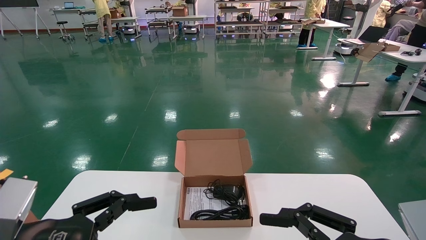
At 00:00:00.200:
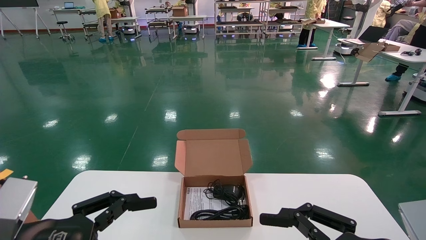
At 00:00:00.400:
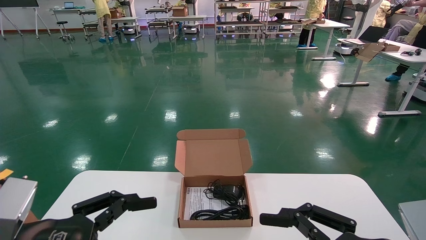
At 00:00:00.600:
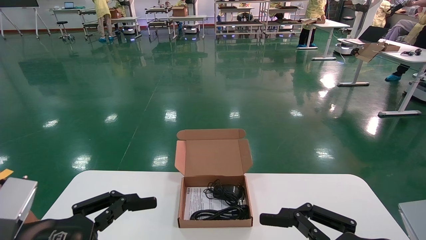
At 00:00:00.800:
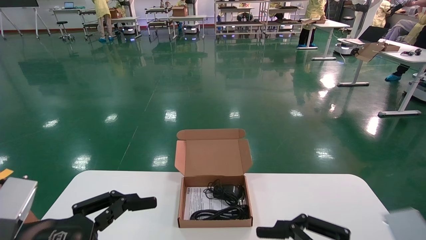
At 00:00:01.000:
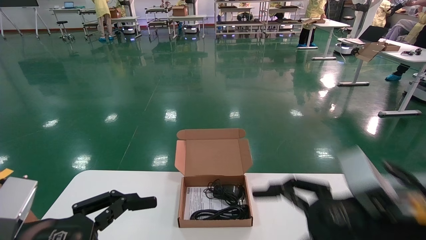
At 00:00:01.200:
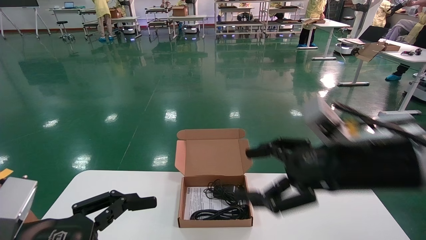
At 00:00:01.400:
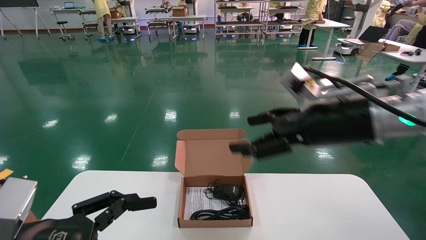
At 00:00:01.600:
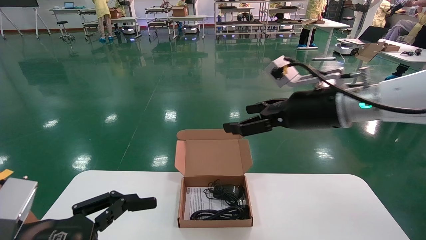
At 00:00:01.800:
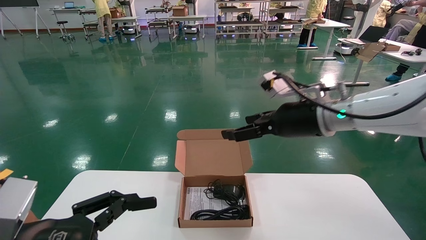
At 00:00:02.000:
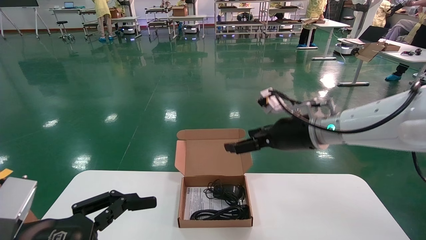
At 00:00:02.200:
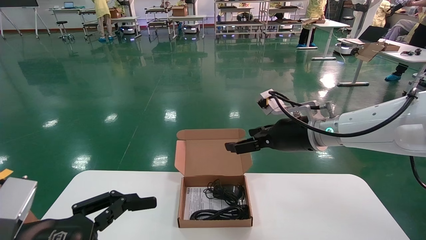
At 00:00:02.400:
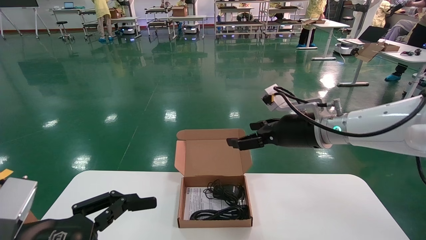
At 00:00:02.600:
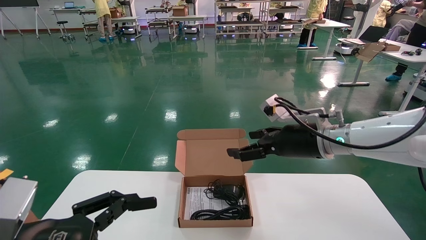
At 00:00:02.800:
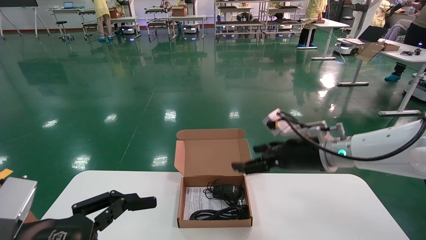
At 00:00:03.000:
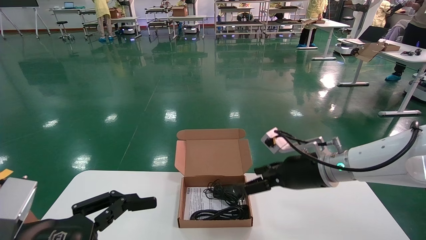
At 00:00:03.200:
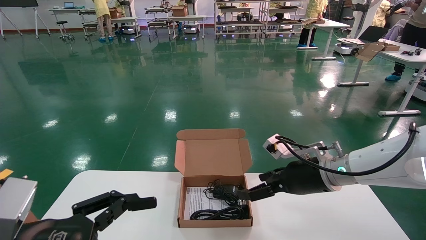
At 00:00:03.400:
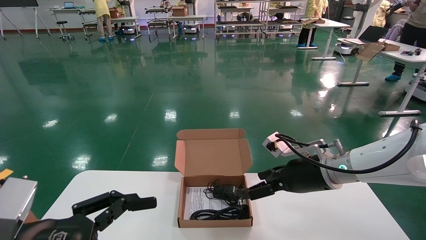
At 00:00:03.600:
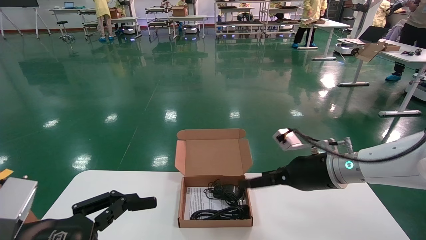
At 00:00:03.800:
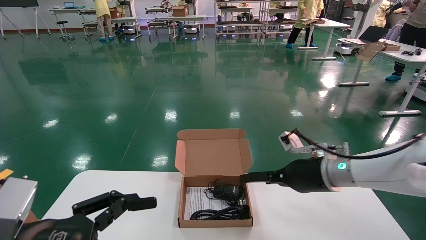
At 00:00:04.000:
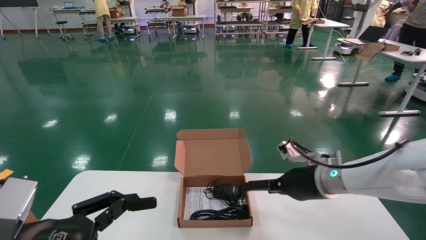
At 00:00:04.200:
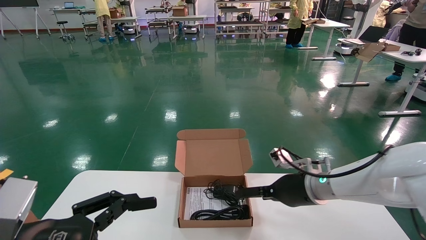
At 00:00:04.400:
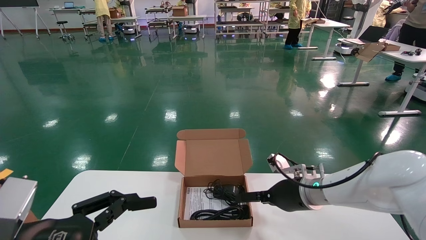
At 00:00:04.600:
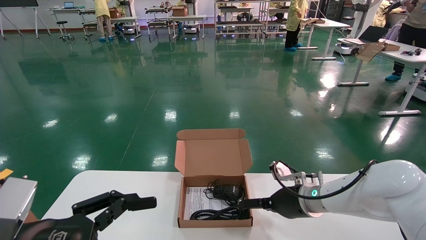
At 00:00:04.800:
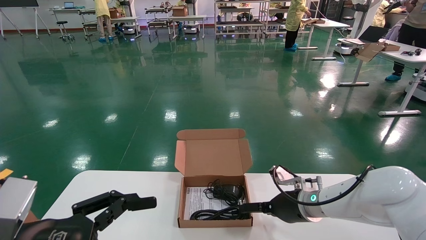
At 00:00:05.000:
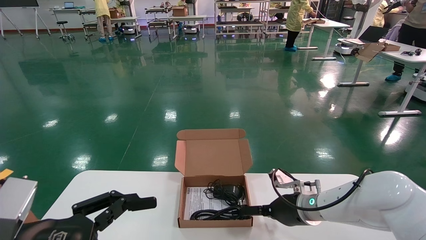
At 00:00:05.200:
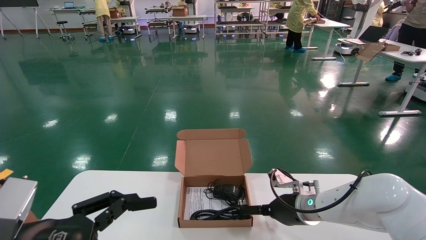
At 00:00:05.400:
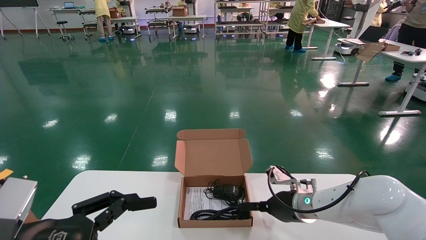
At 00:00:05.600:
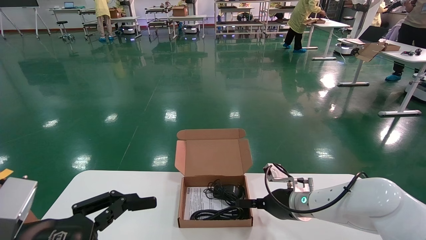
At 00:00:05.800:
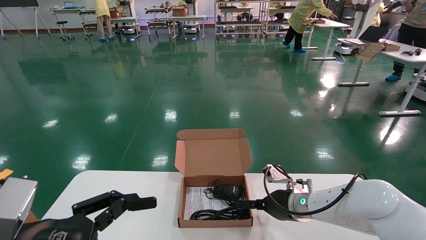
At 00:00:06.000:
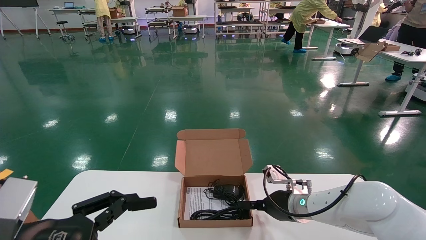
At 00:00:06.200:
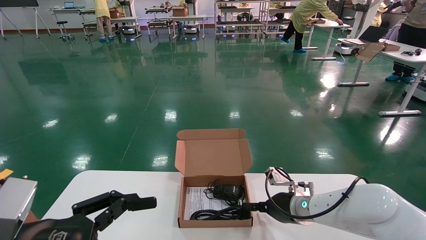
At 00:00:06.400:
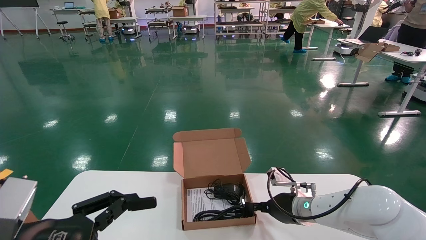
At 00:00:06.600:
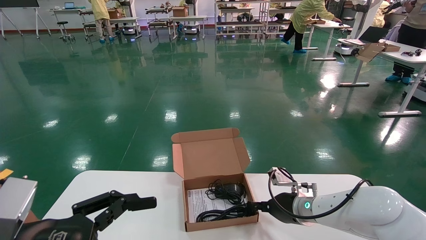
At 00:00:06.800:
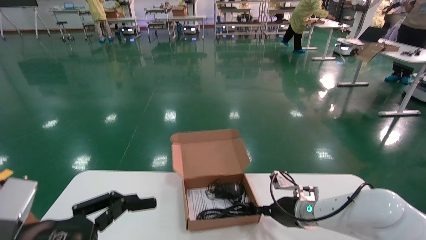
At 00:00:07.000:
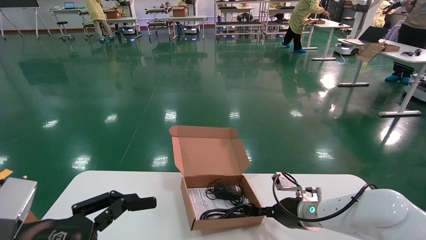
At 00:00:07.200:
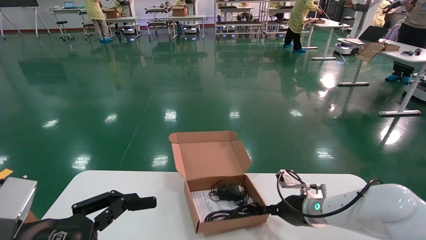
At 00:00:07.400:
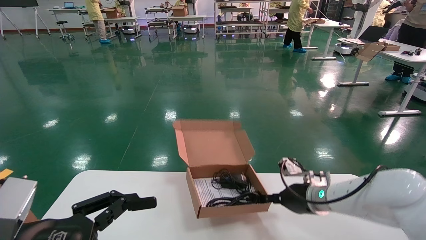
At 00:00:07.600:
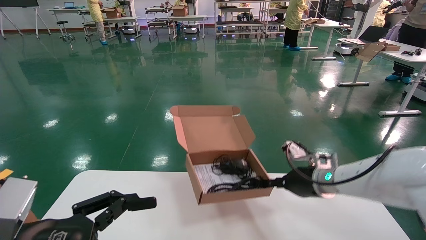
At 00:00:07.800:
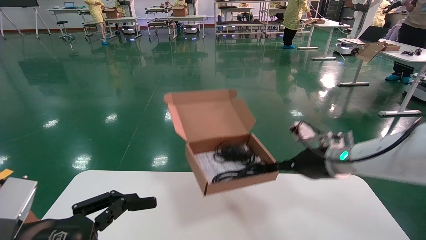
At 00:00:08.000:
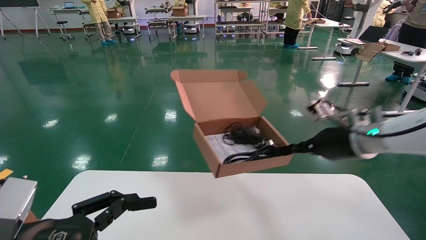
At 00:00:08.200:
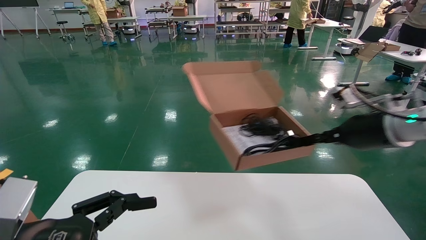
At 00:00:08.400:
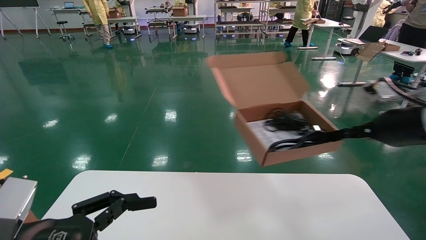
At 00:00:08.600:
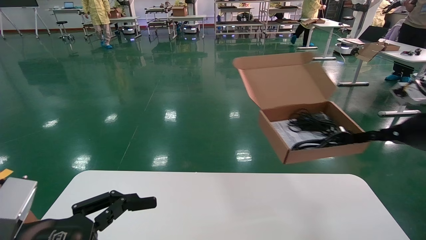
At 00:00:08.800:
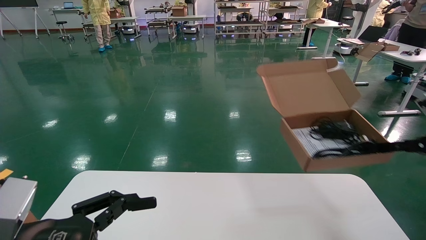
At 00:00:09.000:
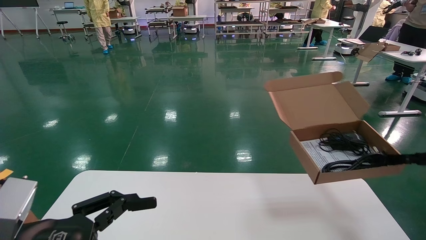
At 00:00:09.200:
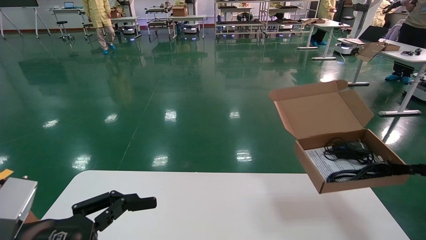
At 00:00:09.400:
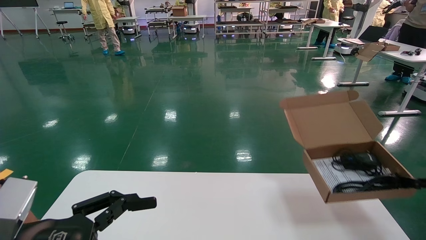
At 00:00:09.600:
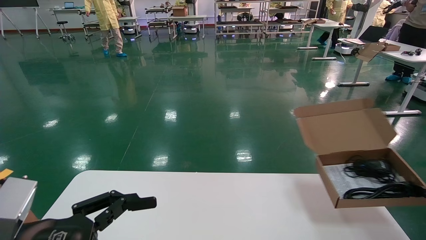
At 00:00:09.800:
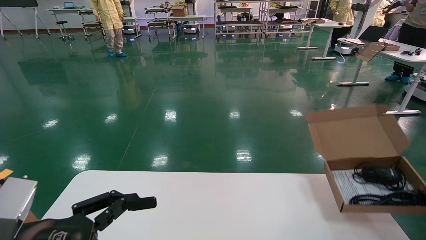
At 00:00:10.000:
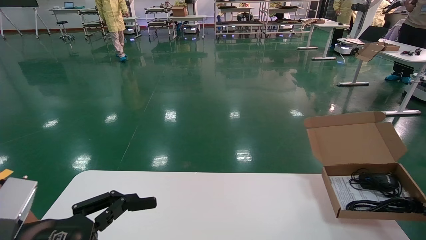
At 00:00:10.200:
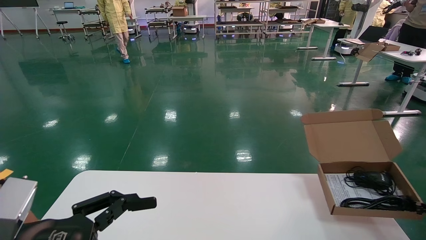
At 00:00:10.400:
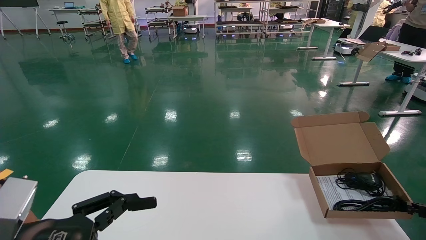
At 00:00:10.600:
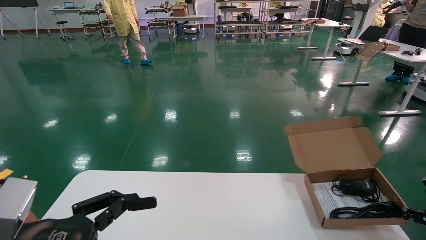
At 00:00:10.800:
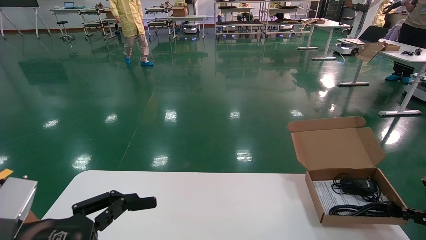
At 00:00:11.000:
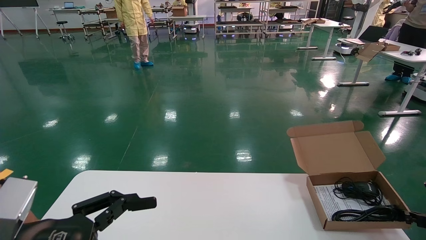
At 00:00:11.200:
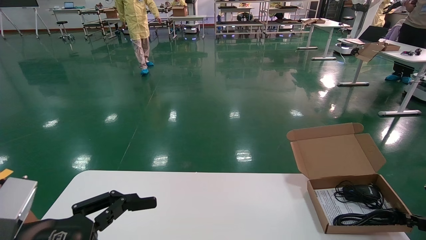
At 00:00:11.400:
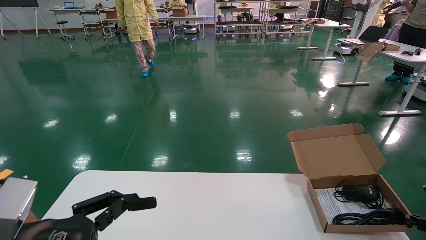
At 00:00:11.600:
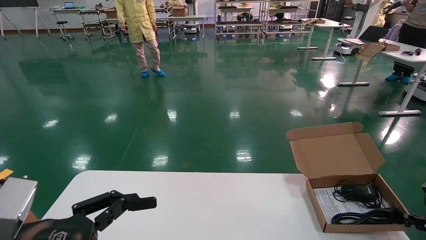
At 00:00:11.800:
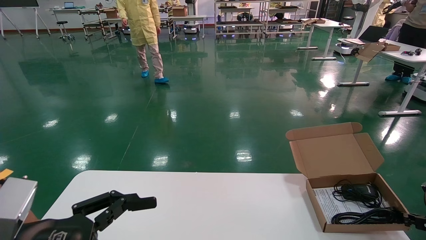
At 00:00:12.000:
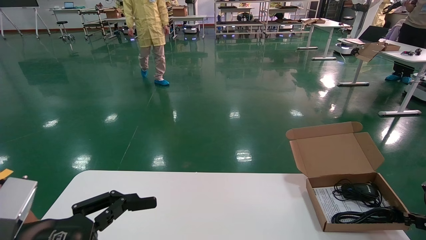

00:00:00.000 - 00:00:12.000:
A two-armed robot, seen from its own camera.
Task of the whole recording: move the position of the storage box with accessories on the table.
Step, 00:00:01.000 - 00:00:06.800: Grab and pick up the open mouse box from the accessory packaging area.
00:00:00.000 - 00:00:01.600: The right gripper is displaced forward and upward by about 25 cm.
00:00:01.600 - 00:00:03.000: The right gripper is displaced downward and forward by about 10 cm.
00:00:03.000 - 00:00:04.400: The right gripper moves downward, roughly 10 cm.
00:00:04.400 - 00:00:06.000: There are only small adjustments of the grippers.
00:00:06.000 - 00:00:07.600: The right gripper is displaced upward by roughly 10 cm, and closes up.
00:00:07.600 - 00:00:09.000: The right gripper travels to the right and backward by approximately 25 cm.
00:00:09.000 - 00:00:10.400: The right gripper goes approximately 15 cm downward.
00:00:10.400 - 00:00:12.000: The grippers stay close to where they were, moving slightly.

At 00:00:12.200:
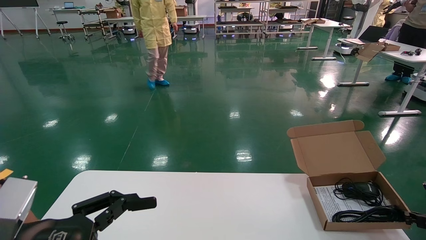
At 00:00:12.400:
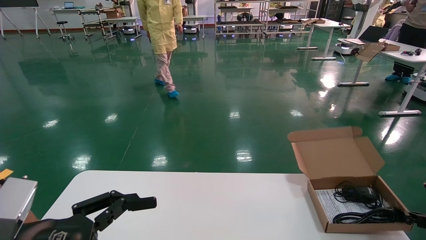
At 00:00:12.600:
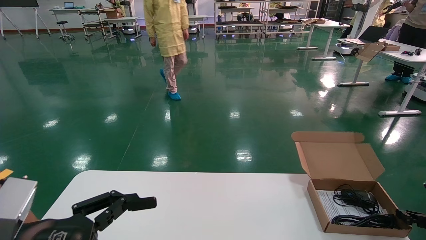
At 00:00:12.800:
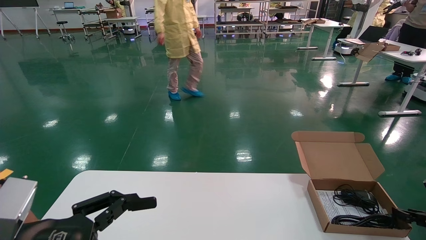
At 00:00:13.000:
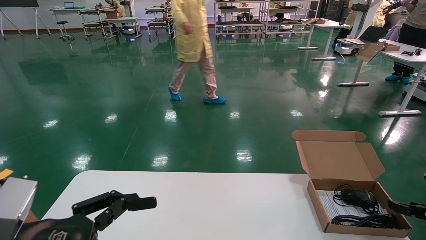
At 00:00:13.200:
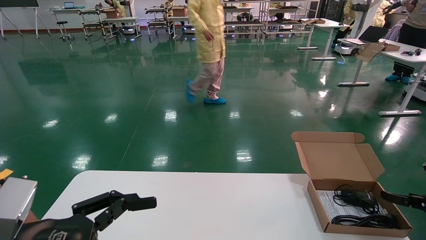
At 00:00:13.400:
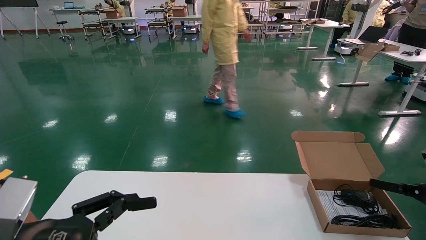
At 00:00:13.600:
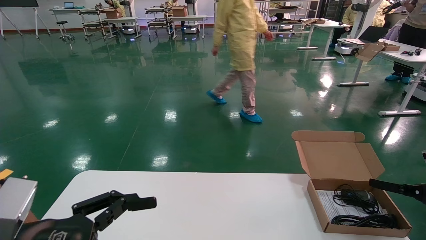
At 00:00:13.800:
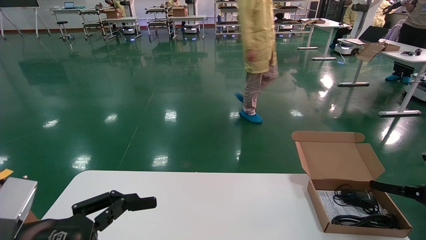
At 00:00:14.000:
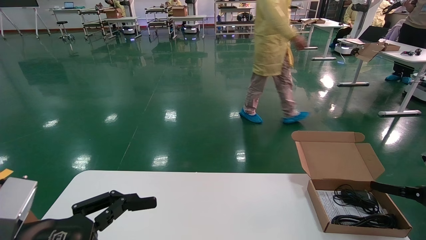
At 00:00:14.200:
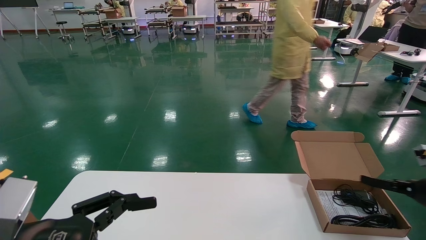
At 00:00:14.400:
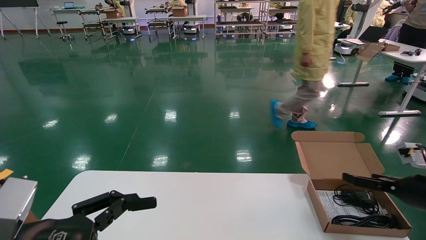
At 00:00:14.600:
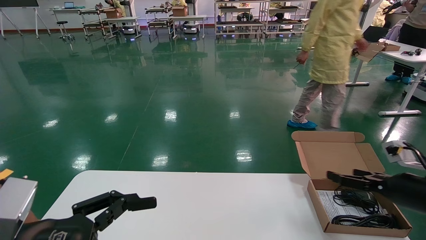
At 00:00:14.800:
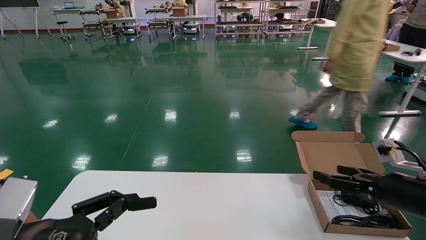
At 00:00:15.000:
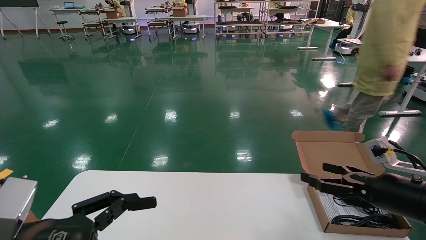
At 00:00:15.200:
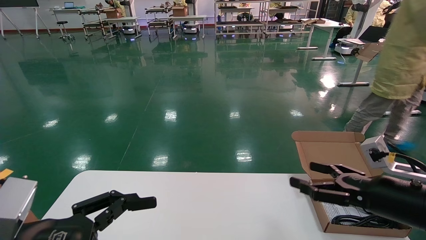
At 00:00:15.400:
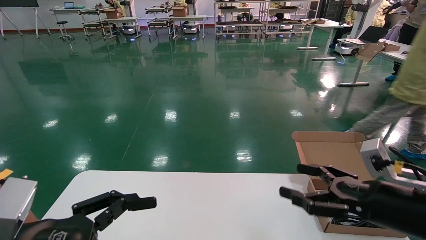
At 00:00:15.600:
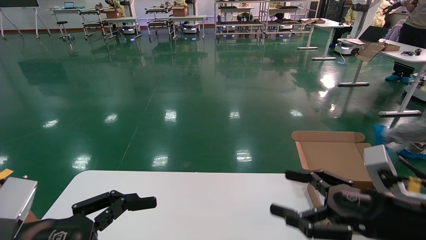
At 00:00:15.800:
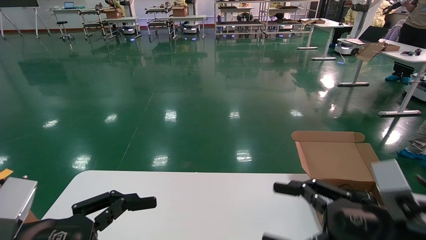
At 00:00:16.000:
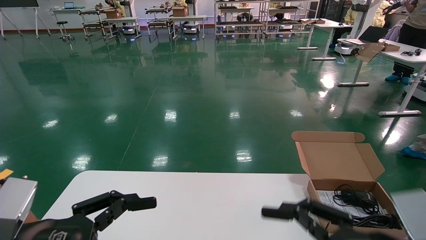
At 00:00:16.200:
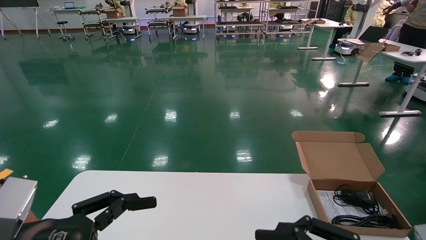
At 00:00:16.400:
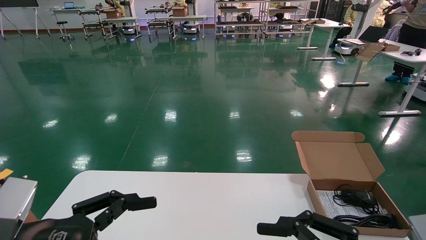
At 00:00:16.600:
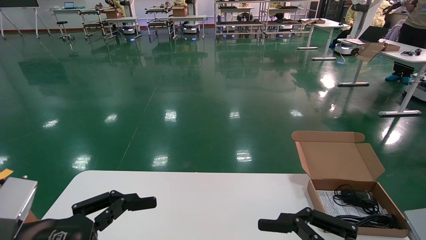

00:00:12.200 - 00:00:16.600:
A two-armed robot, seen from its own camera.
Task of the whole recording: move the position of the storage box with accessories on the table.
00:00:12.200 - 00:00:13.600: The right gripper goes roughly 5 cm upward, and opens its fingers.
00:00:13.600 - 00:00:15.200: The right gripper is displaced to the left and backward by about 15 cm.
00:00:15.200 - 00:00:16.600: The right gripper goes some 15 cm backward and to the left.
